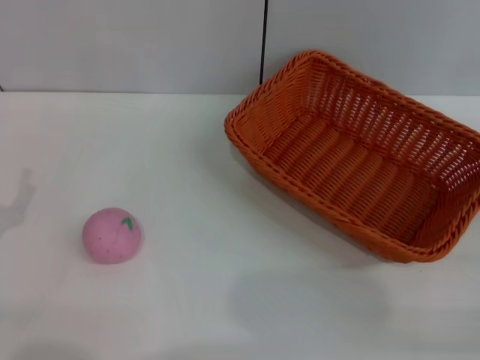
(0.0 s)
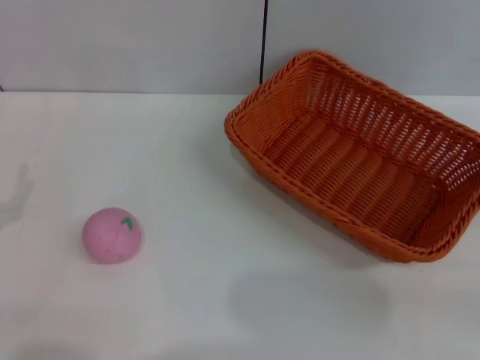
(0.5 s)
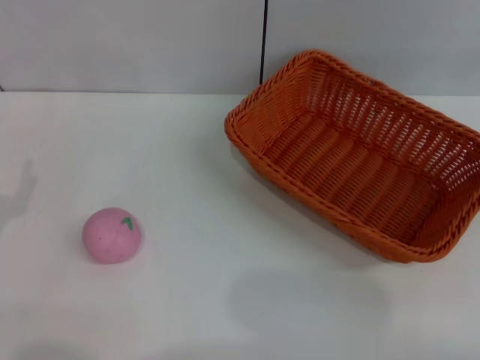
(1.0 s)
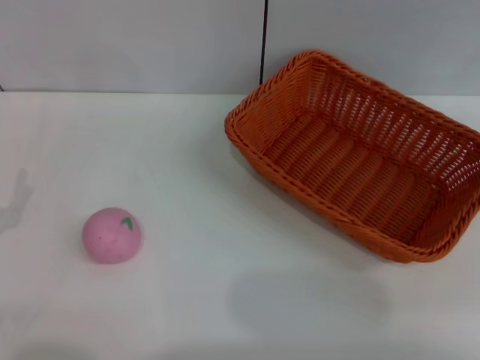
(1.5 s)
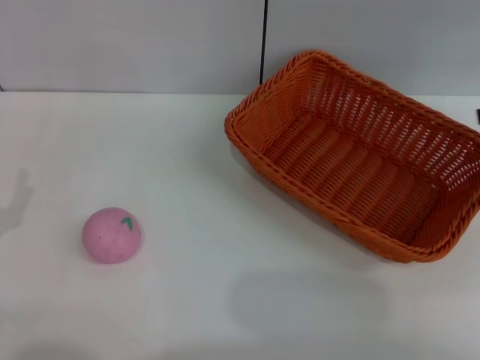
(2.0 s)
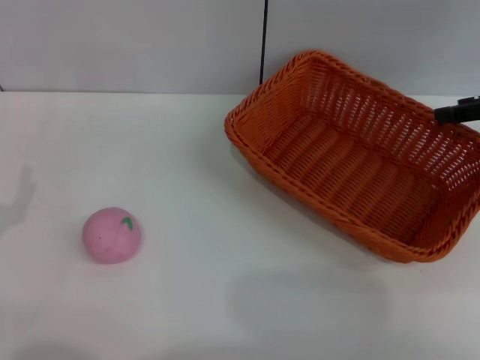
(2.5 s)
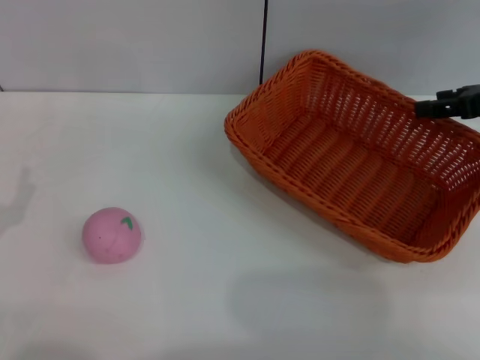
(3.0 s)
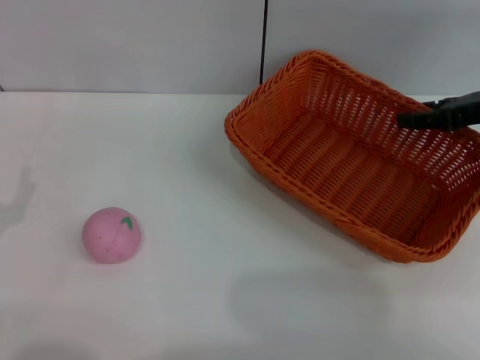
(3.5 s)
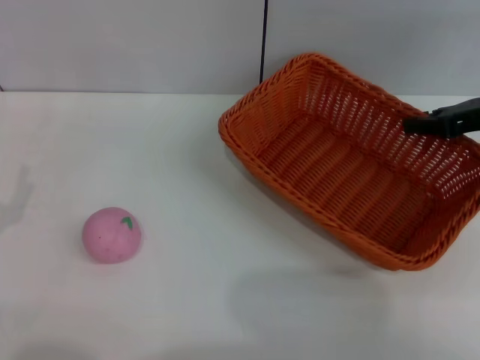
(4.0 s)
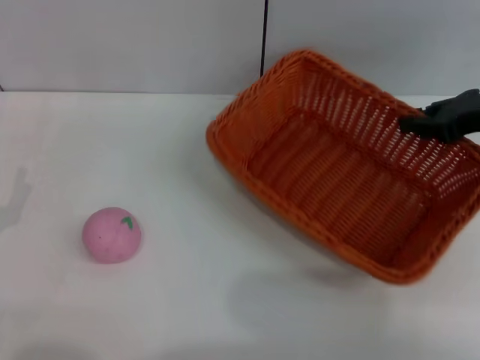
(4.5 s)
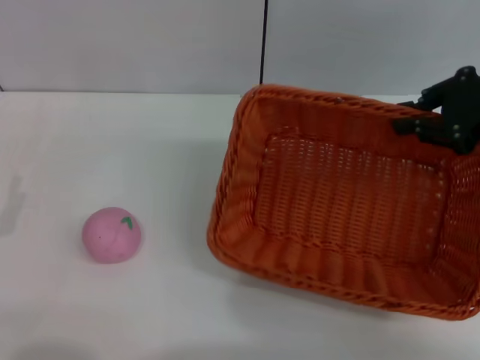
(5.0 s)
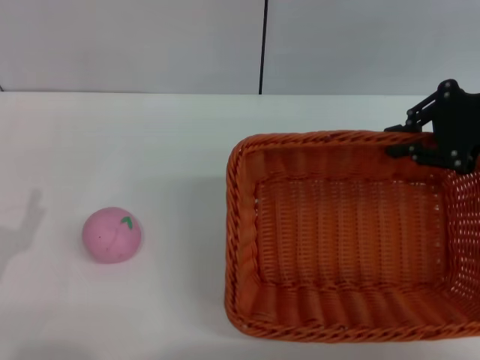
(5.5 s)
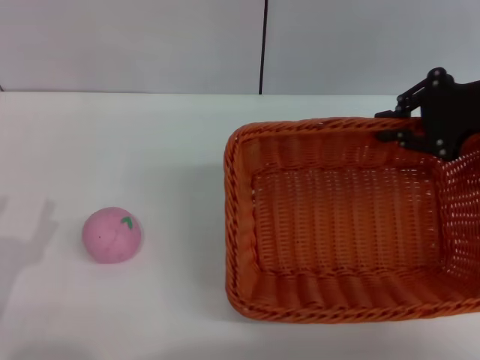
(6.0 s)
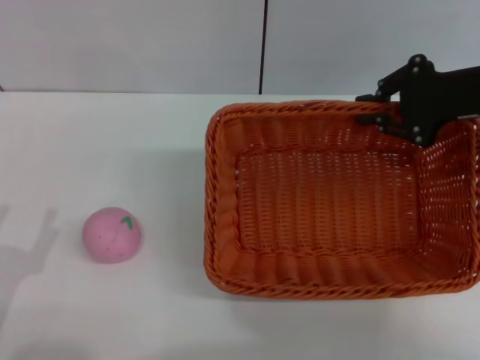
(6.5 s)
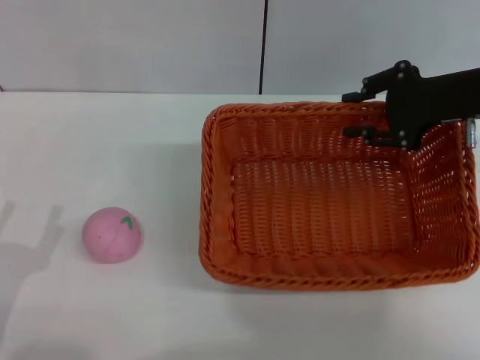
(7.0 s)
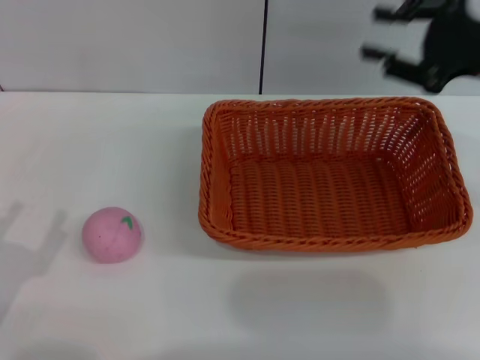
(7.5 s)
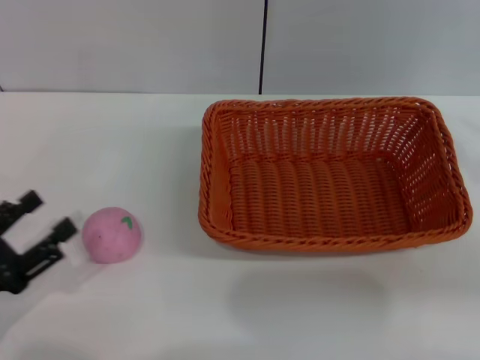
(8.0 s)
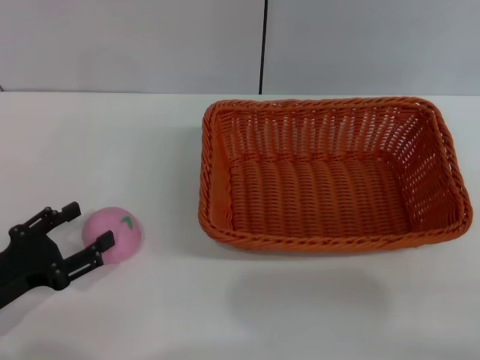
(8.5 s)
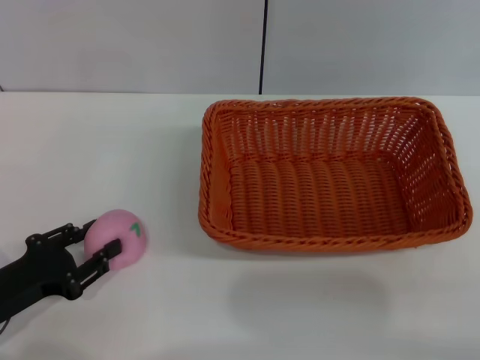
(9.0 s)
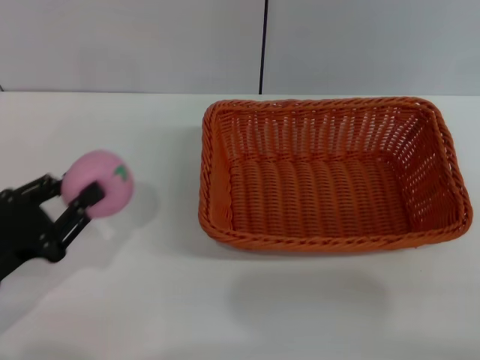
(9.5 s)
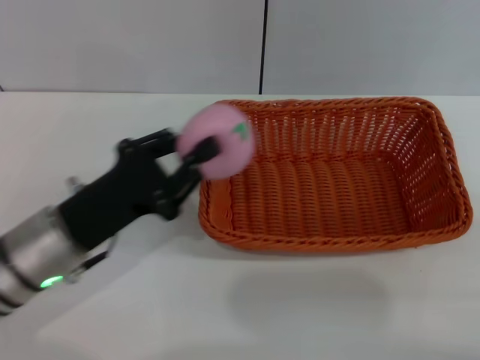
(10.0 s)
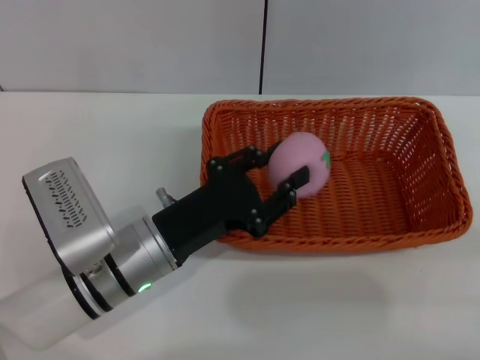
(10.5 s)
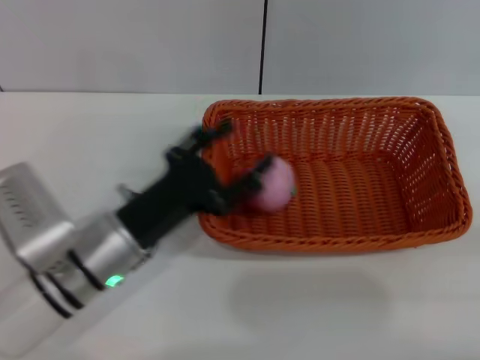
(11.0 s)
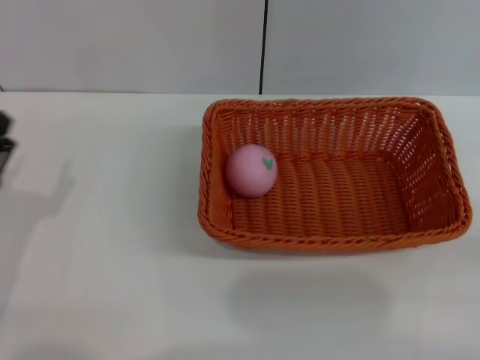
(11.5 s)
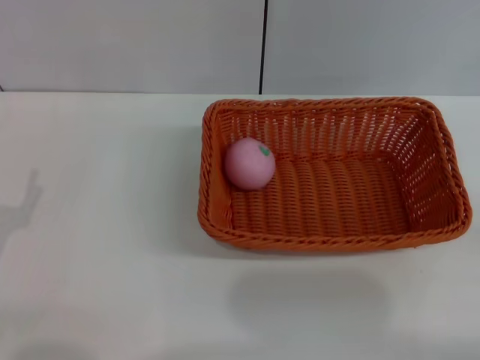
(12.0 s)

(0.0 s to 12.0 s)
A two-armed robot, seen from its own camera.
Step, 0.0 s - 4.5 s: Pick up the light basket with the right gripper.
Step, 5.0 s - 7.0 s: Place the light basket in the center of view with the right gripper.
Step, 8.0 s - 9.5 s: Pick up the peach with the left gripper.
Step, 10.0 s - 11.0 s: Place the peach into the basket with the left gripper.
2.0 s - 4.0 s: The right gripper travels downward and to the left by about 10 cm, and closes up.
4.0 s - 6.0 s: The left gripper moves roughly 5 cm. The right gripper is displaced upward by roughly 5 cm, and closes.
6.0 s - 8.0 s: The right gripper moves backward and to the right, about 15 cm, and opens.
8.0 s - 10.0 s: The left gripper goes roughly 15 cm to the right and forward, and closes its fingers. The right gripper travels backward and downward by some 10 cm.
10.0 s - 12.0 s: The left gripper heads to the left and backward, covering approximately 15 cm, and opens up. Meanwhile the right gripper shifts approximately 5 cm downward.
